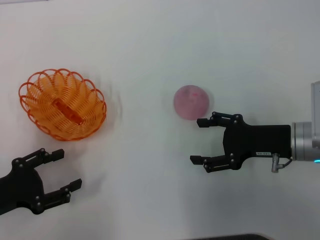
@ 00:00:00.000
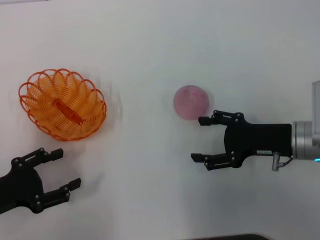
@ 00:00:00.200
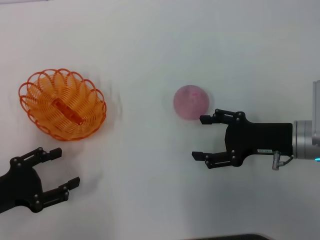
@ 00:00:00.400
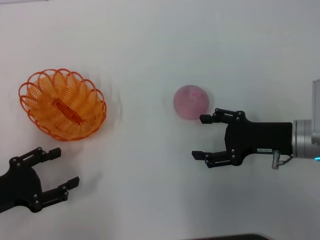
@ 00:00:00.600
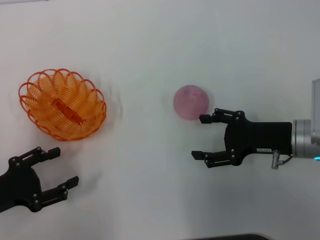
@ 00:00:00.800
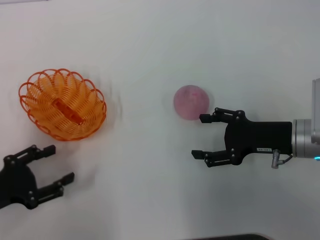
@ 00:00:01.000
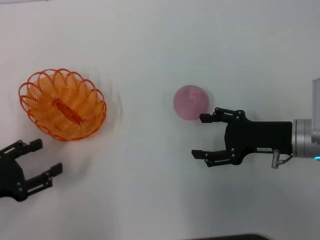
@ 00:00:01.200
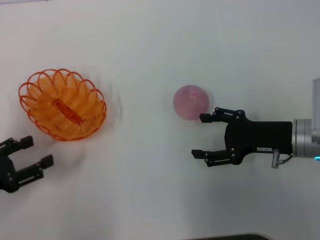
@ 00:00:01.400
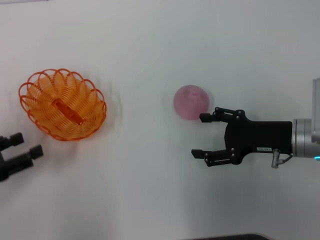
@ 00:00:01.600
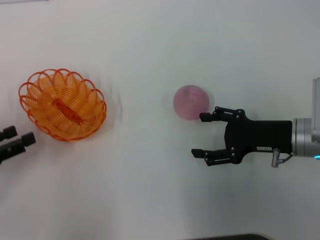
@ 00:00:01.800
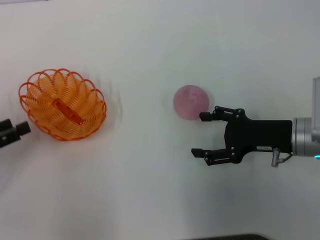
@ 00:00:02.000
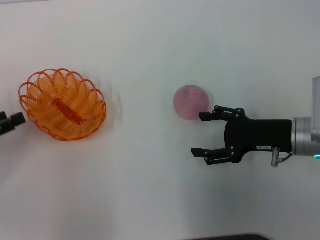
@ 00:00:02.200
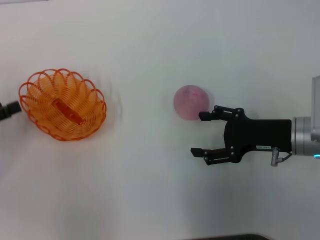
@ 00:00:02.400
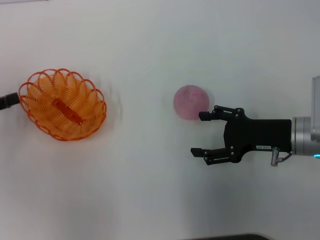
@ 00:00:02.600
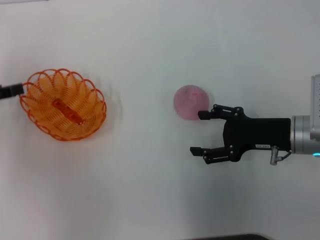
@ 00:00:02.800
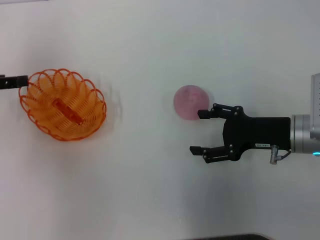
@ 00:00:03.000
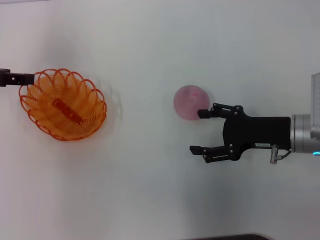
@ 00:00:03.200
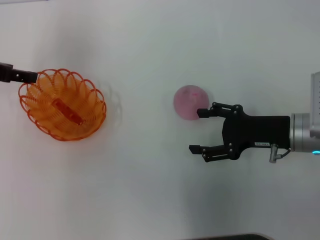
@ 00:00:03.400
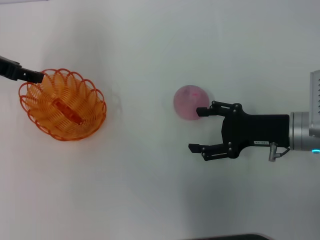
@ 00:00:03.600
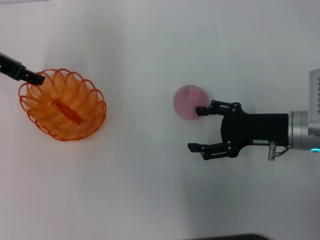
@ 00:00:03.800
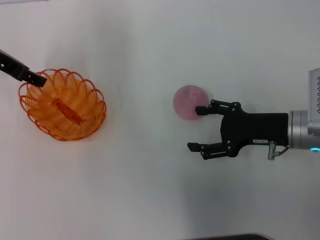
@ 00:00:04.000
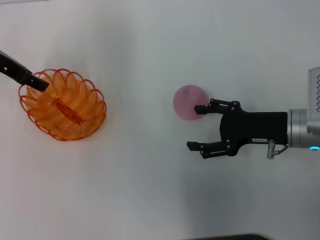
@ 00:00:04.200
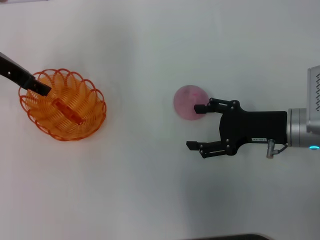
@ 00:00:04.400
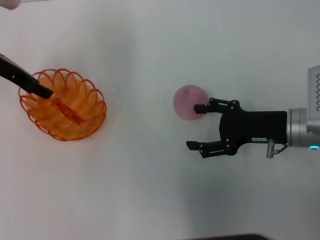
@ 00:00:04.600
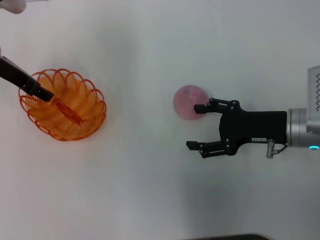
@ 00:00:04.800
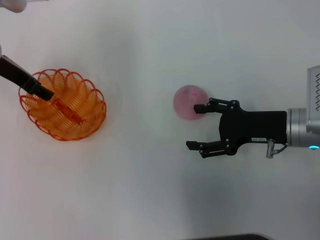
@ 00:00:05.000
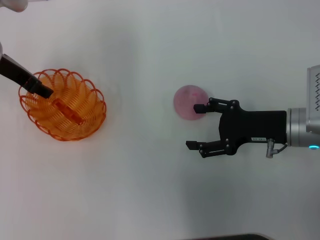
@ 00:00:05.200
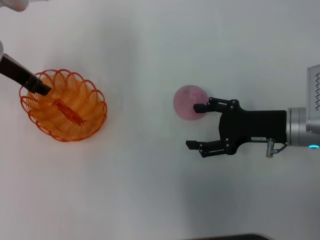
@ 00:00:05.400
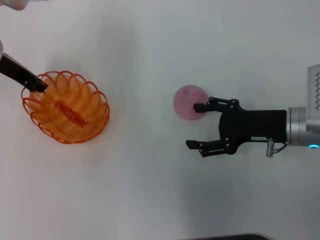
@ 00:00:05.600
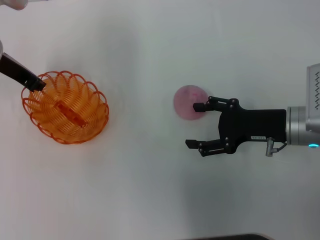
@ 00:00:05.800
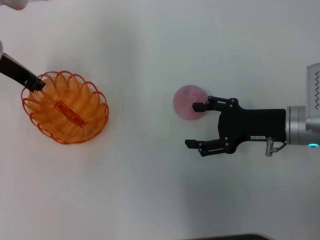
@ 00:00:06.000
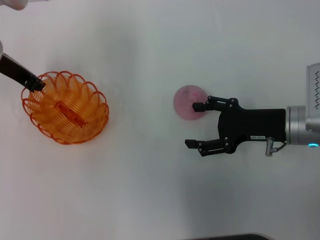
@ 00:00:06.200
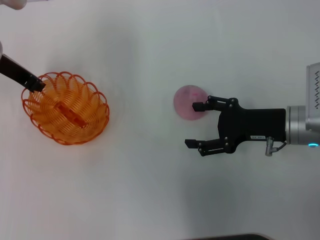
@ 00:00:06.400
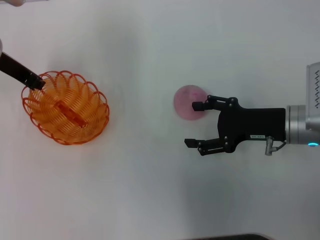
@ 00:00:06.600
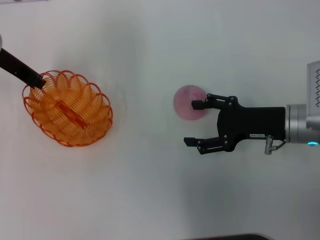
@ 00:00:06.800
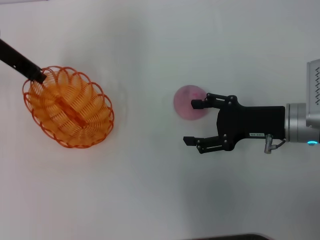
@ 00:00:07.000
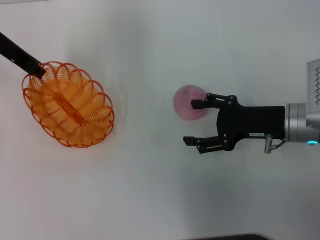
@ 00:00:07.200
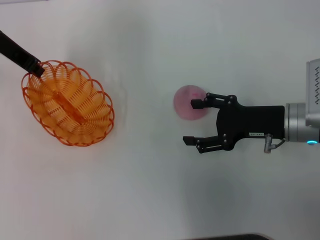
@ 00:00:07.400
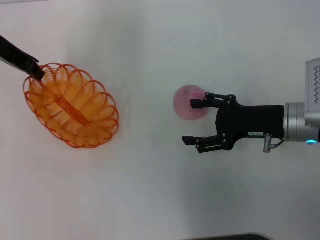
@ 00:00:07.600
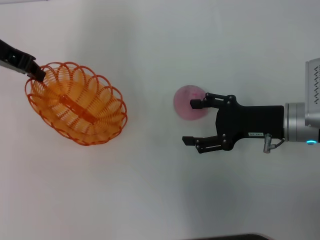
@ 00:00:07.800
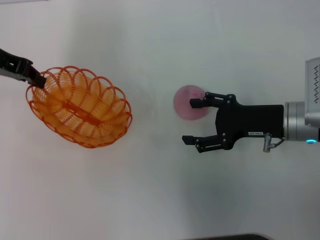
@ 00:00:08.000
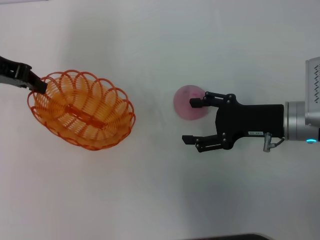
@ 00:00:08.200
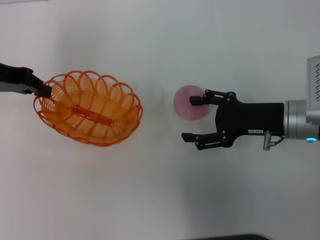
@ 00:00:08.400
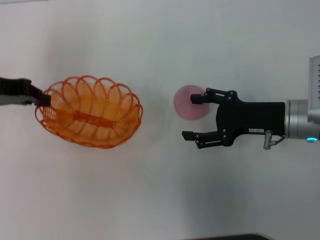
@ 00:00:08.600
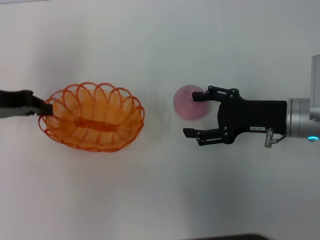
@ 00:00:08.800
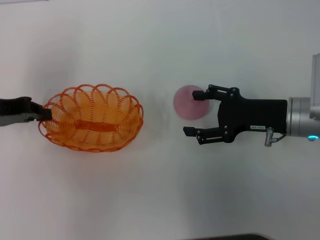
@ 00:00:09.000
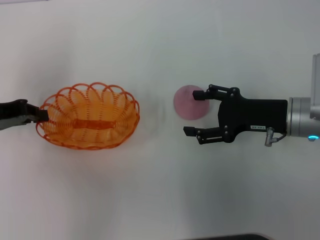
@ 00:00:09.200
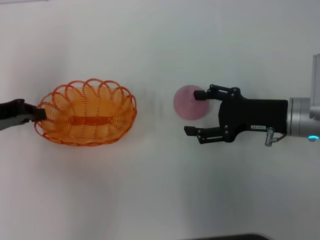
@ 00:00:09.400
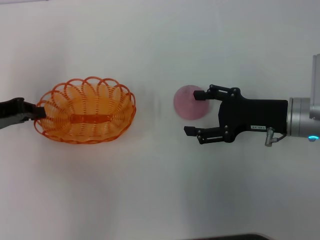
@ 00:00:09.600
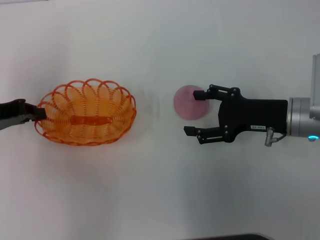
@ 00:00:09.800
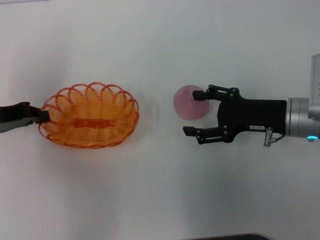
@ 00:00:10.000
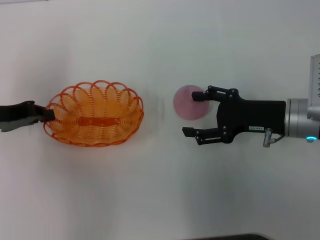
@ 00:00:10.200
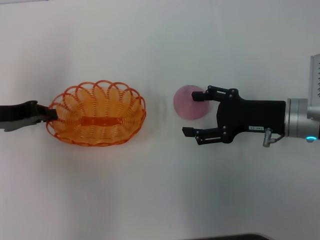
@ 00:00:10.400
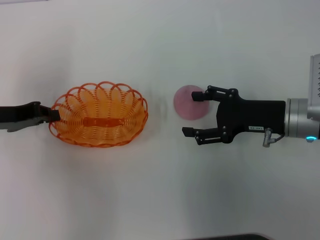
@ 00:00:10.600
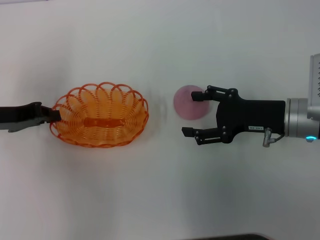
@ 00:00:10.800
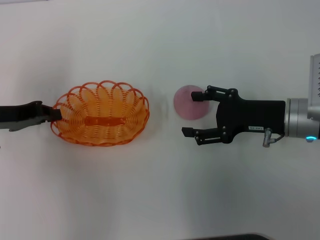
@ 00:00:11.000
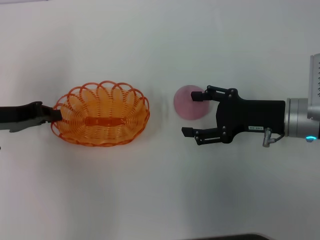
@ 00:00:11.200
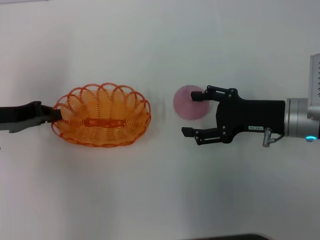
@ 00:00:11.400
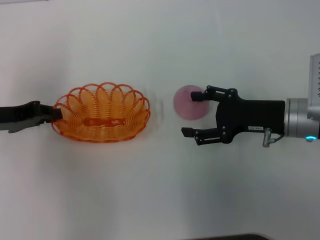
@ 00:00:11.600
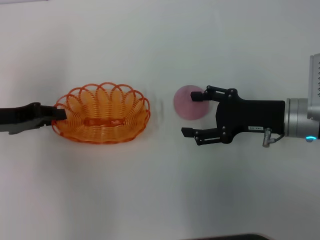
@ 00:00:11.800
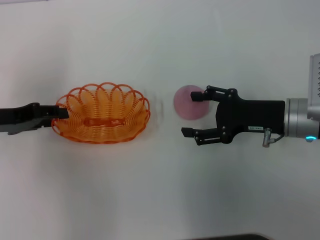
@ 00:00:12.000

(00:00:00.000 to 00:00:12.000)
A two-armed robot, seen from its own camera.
Step, 00:00:00.000 - 00:00:07.000: Pick up the basket with the left gripper.
00:00:01.600 - 00:00:03.000: The left gripper shifts some 15 cm forward and upward.
00:00:03.000 - 00:00:04.400: The left gripper goes some 10 cm to the right and forward.
00:00:04.400 - 00:00:06.000: The left gripper closes its fingers.
00:00:06.000 - 00:00:07.600: The grippers move only a little.
00:00:07.600 - 00:00:09.000: The left gripper goes approximately 15 cm backward, downward and to the left.
00:00:09.000 - 00:00:10.400: There are only small adjustments of the grippers.
00:00:10.400 - 00:00:12.000: The left gripper opens up.

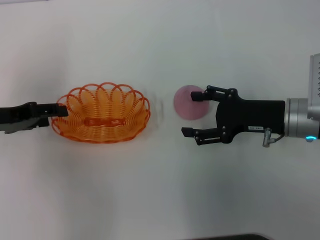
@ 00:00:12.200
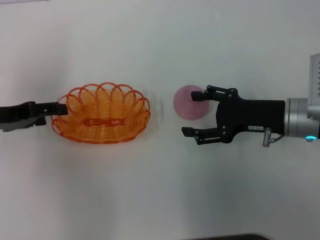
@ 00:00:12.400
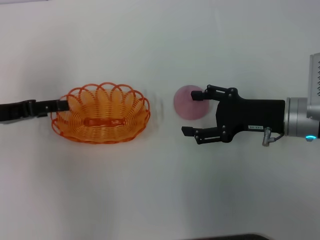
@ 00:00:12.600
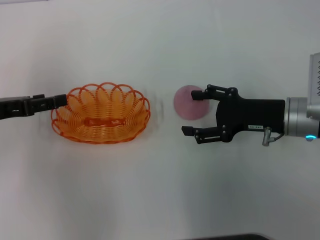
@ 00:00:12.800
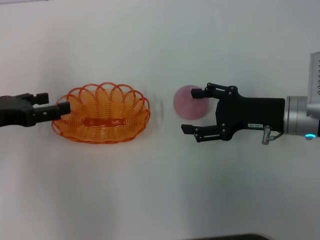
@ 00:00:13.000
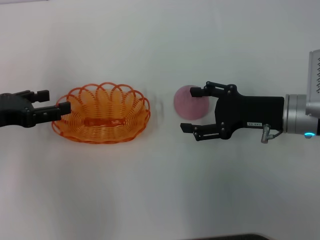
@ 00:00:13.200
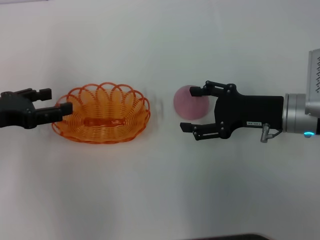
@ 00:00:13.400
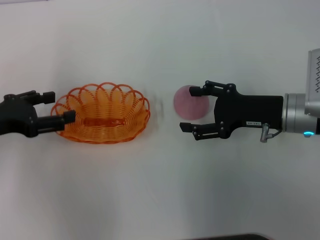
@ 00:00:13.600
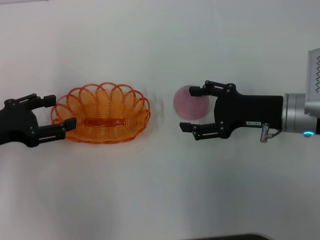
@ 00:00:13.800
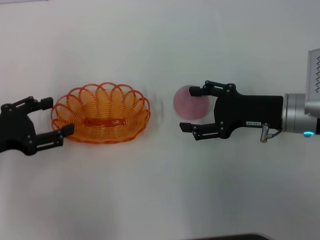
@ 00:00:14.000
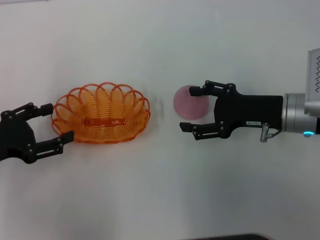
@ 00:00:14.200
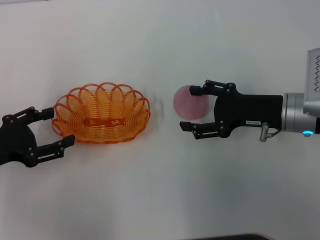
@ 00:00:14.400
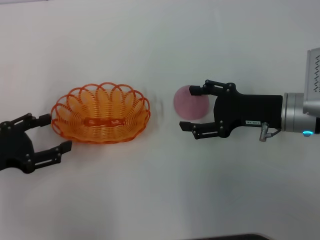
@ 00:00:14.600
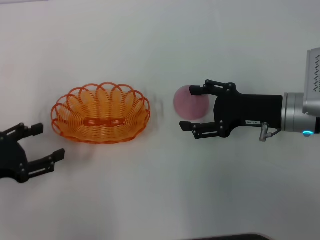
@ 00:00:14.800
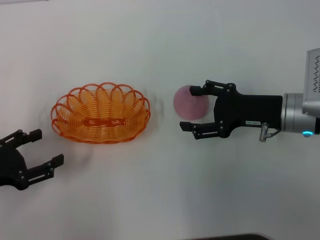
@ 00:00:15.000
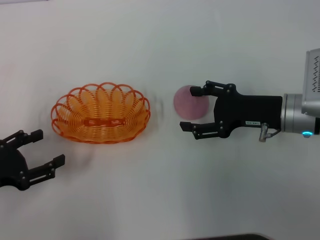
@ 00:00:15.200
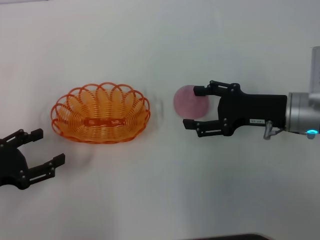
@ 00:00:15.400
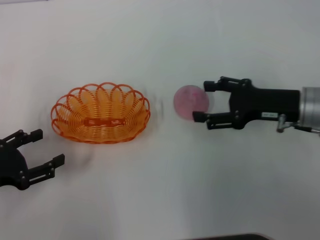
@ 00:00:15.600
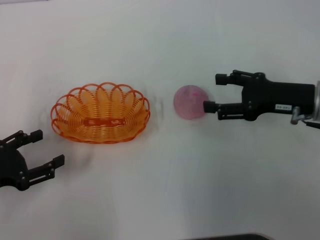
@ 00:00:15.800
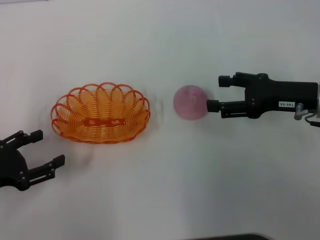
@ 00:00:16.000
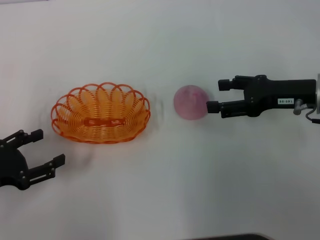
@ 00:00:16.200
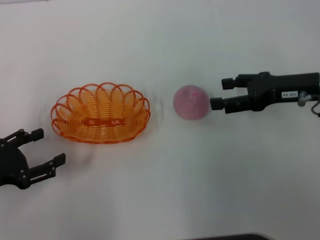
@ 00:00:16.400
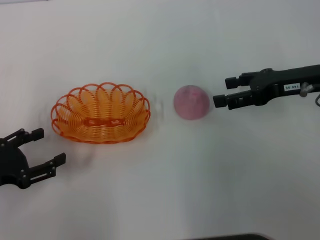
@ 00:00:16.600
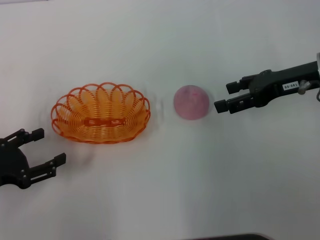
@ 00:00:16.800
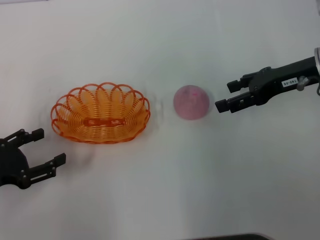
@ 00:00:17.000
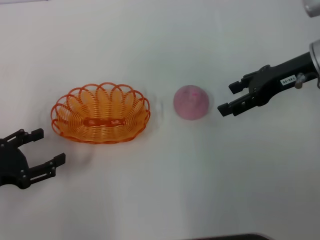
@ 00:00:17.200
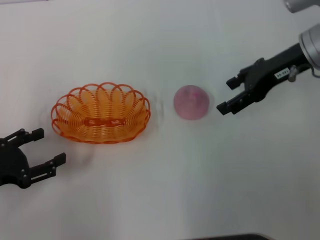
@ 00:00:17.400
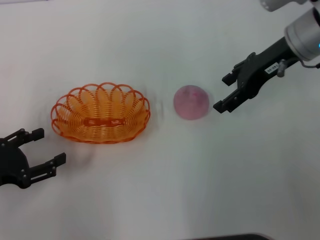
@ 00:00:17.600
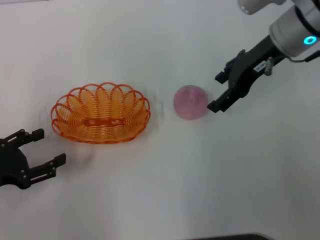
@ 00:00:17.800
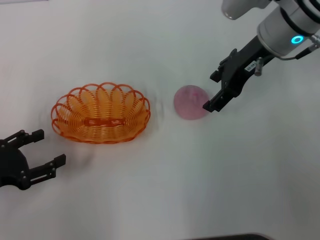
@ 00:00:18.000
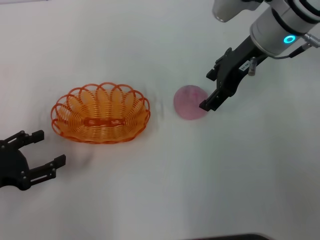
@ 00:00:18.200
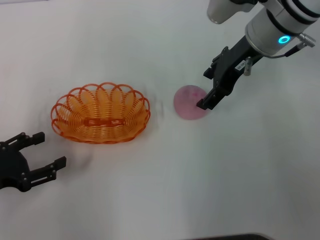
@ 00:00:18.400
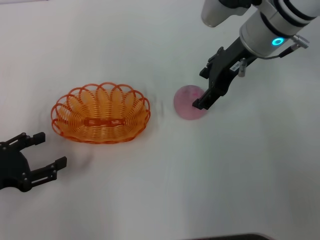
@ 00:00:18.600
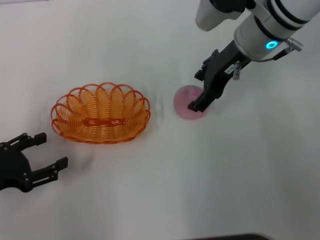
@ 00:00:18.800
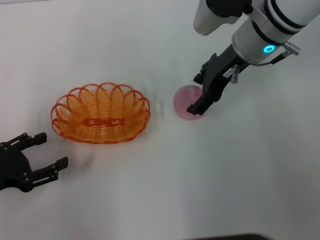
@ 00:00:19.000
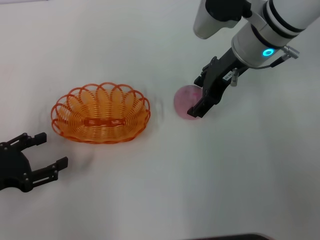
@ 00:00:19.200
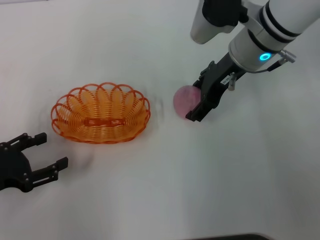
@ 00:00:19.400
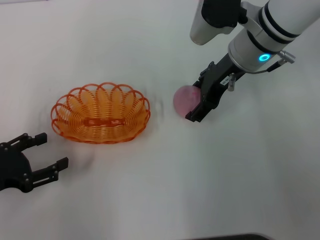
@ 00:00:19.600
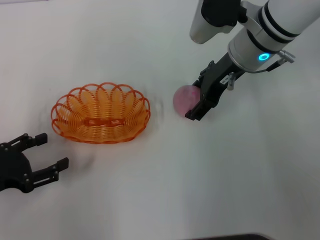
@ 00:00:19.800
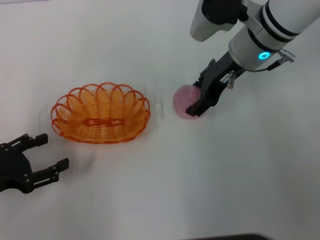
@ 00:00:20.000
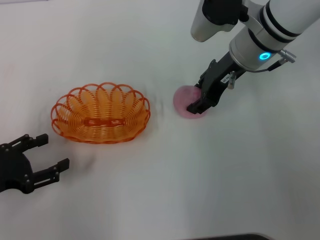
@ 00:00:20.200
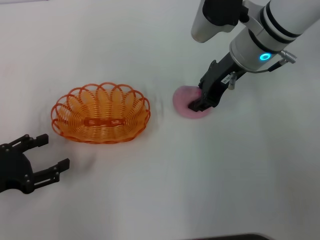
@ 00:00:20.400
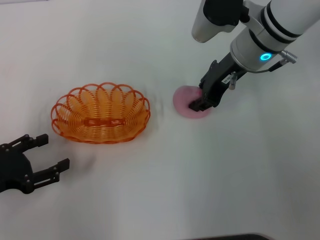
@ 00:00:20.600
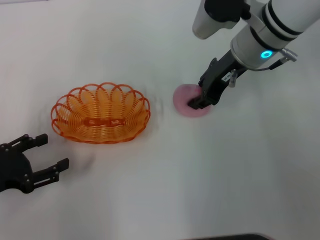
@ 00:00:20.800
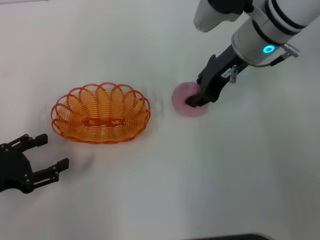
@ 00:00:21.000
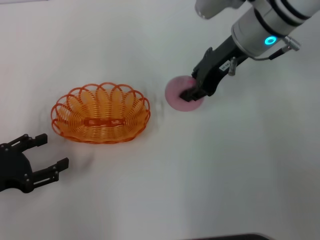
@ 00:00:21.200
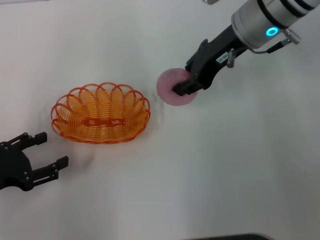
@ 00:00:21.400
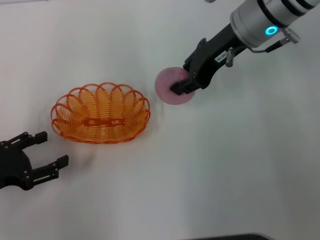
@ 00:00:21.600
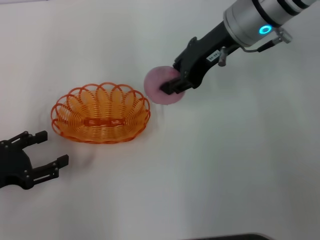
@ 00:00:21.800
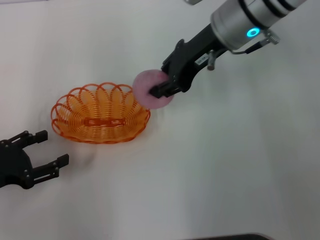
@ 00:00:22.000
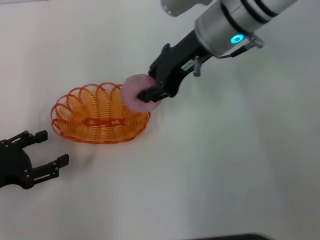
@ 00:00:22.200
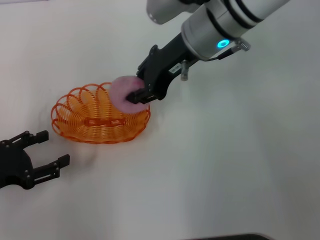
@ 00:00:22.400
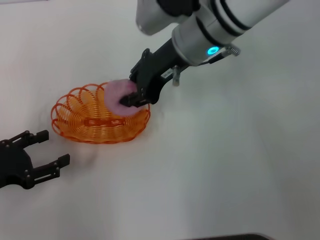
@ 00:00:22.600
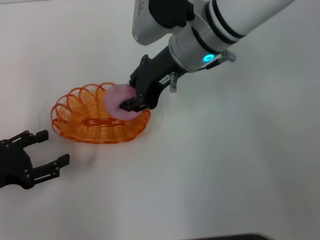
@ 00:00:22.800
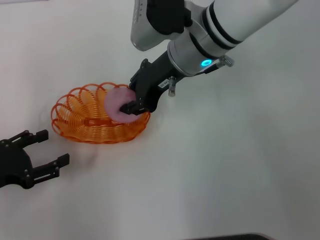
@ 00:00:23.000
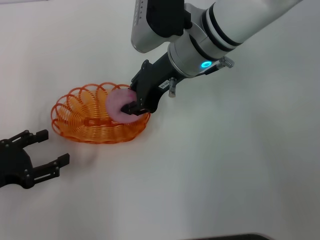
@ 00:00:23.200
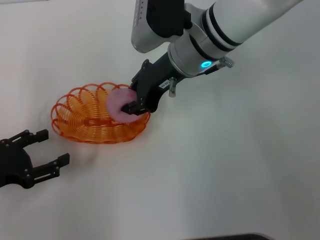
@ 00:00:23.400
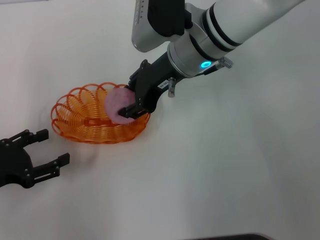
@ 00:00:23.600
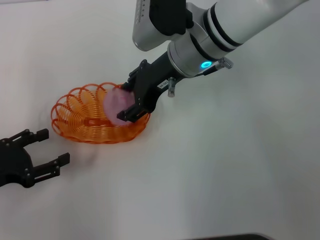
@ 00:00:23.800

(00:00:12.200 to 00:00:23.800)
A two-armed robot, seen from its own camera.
Step, 00:00:13.000 - 00:00:21.400: Pick up the peach with the right gripper.
00:00:13.600 - 00:00:15.000: The left gripper shifts about 10 cm backward and downward.
00:00:15.000 - 00:00:16.600: The right gripper moves upward, some 5 cm.
00:00:16.600 - 00:00:18.000: The right gripper travels to the left, forward and upward by approximately 15 cm.
00:00:18.000 - 00:00:19.400: There are only small adjustments of the grippers.
00:00:19.400 - 00:00:21.000: The right gripper closes up.
00:00:21.000 - 00:00:22.400: The right gripper goes approximately 5 cm to the left.
00:00:22.400 - 00:00:23.800: The right gripper opens up.
